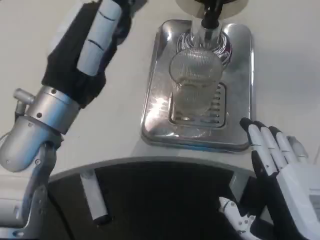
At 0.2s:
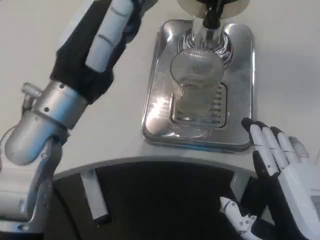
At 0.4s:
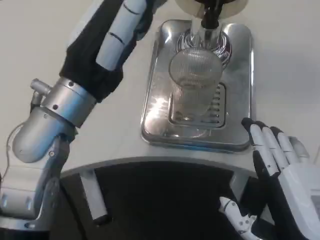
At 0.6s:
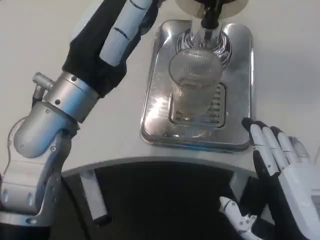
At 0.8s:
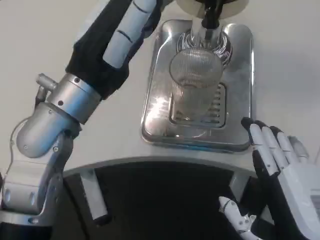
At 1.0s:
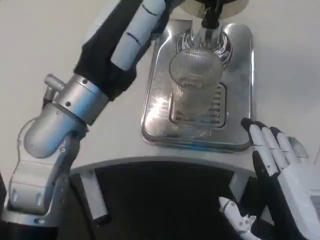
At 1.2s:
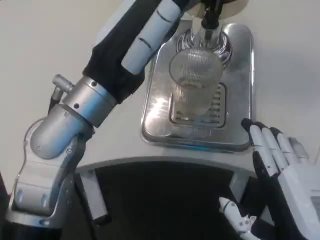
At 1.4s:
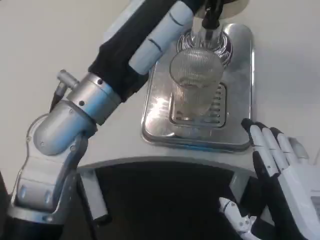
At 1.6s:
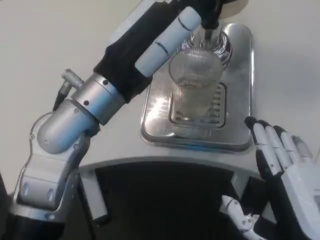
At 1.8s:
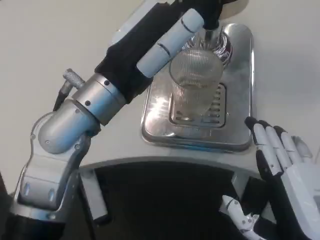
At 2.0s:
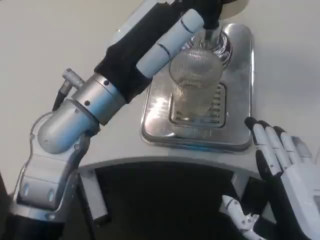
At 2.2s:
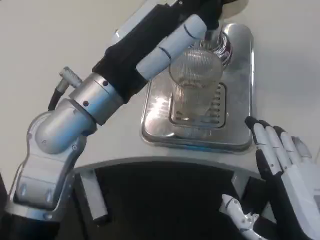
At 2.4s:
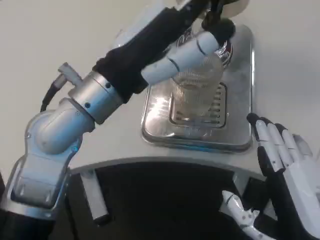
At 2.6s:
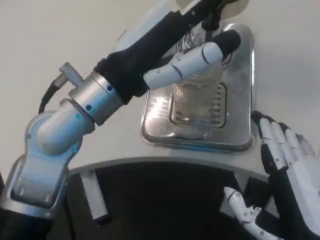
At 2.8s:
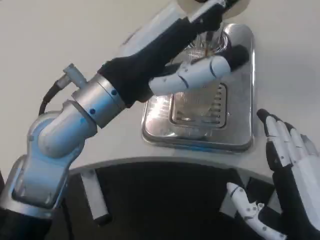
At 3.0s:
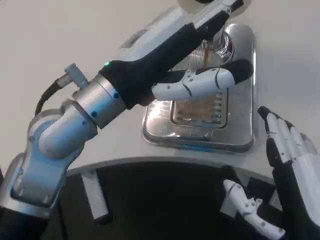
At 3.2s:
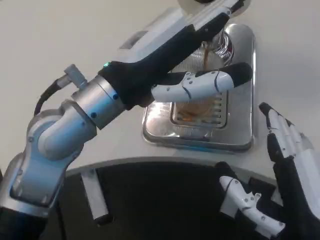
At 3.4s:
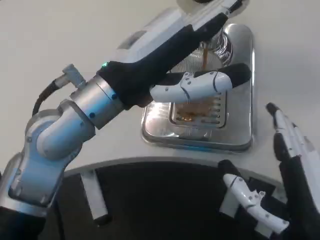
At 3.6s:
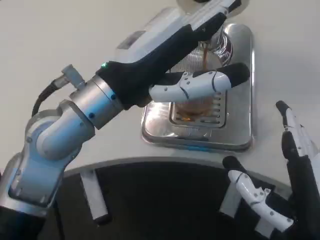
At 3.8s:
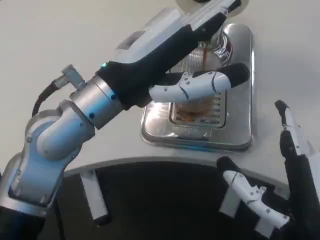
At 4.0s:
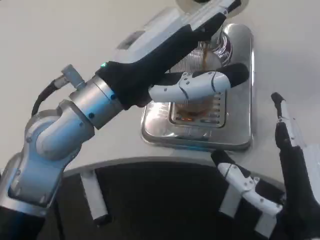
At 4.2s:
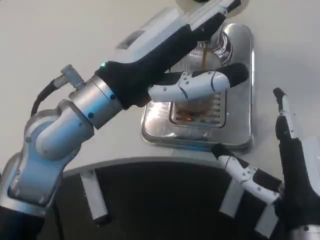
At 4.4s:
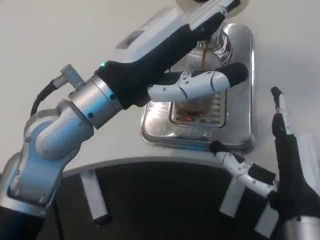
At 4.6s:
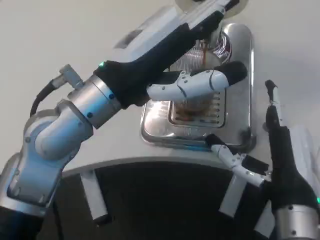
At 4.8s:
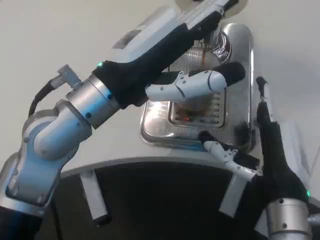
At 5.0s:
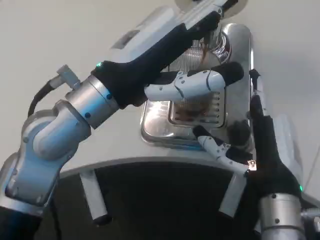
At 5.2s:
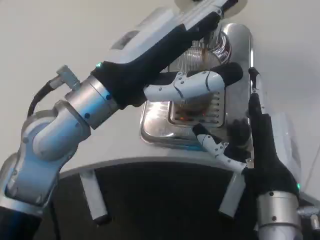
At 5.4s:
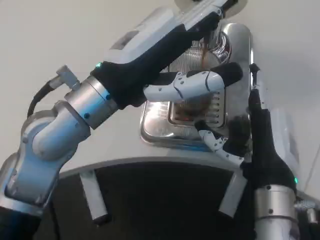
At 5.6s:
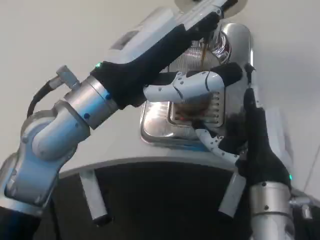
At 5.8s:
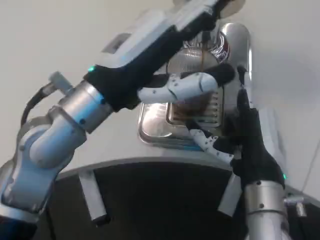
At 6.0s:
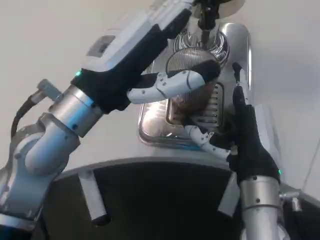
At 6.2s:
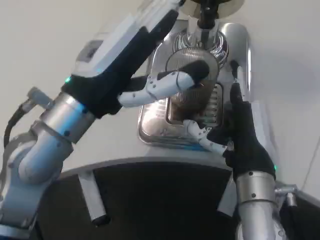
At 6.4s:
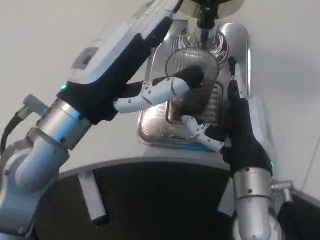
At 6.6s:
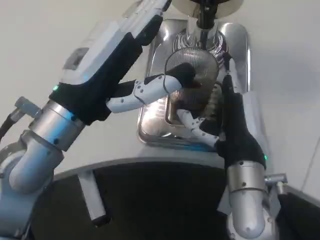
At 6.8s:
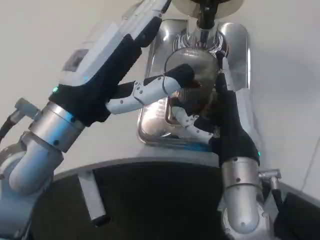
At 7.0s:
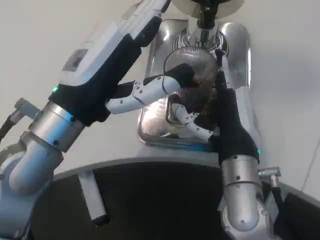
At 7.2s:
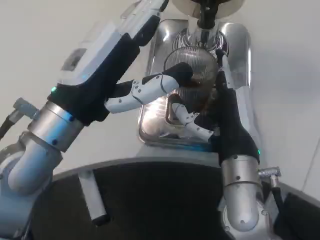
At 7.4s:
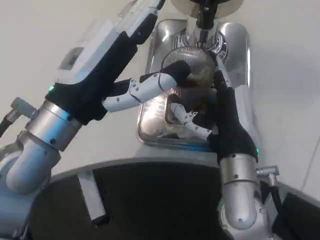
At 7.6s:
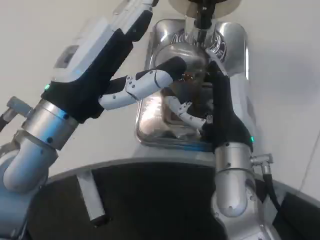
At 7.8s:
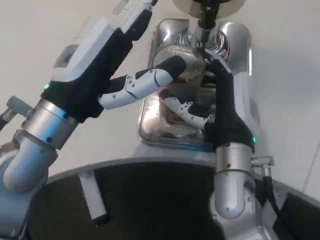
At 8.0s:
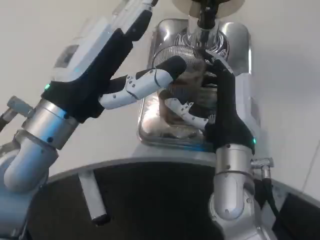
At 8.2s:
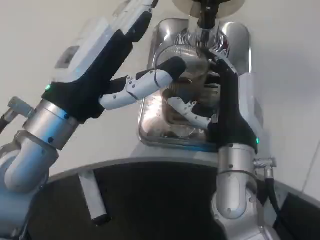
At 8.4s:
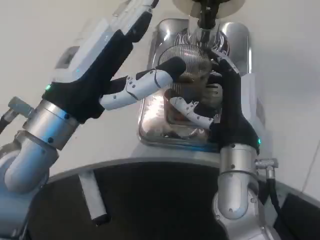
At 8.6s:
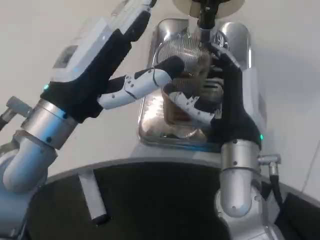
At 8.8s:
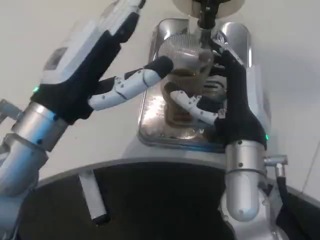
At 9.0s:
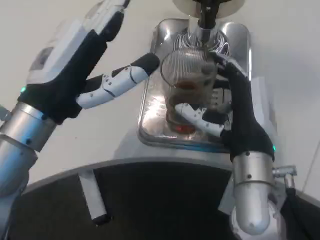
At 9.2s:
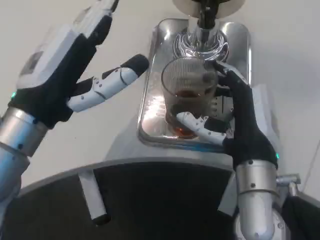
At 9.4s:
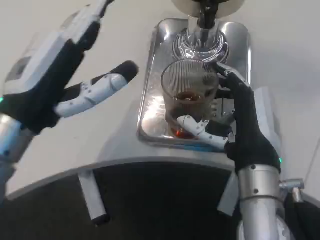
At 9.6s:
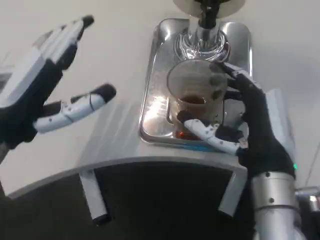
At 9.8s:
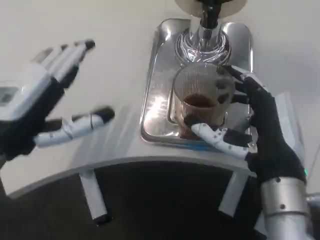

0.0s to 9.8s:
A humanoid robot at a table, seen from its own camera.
Task of the whole recording: Grasp the cup under the faucet to collect the drink, then remove the cup.
2.8s to 4.2s: The right hand goes some 5 cm forward.
4.2s to 5.6s: The right hand is displaced forward by approximately 5 cm.
8.4s to 9.8s: The right hand heads backward, covering about 5 cm. The left hand heads to the left, covering some 5 cm.

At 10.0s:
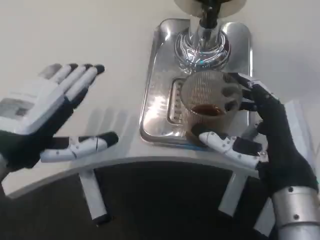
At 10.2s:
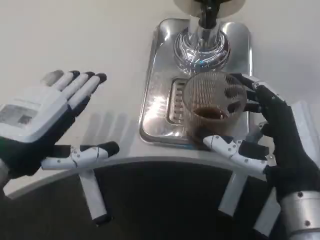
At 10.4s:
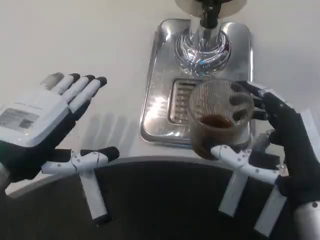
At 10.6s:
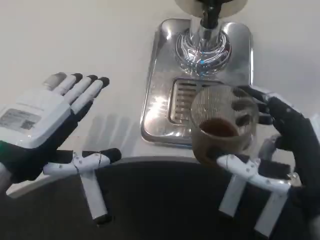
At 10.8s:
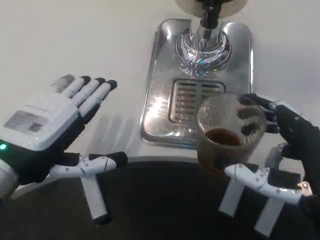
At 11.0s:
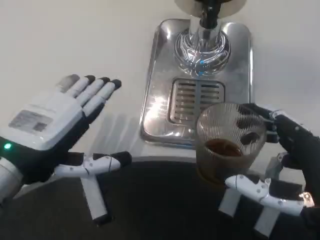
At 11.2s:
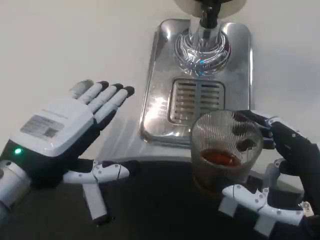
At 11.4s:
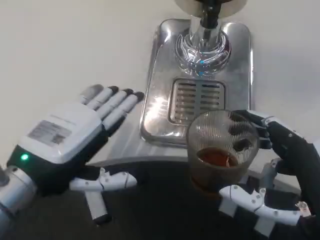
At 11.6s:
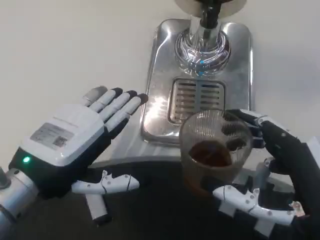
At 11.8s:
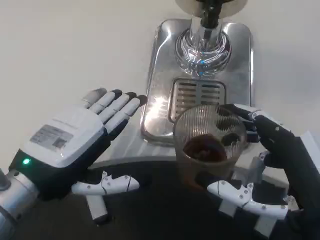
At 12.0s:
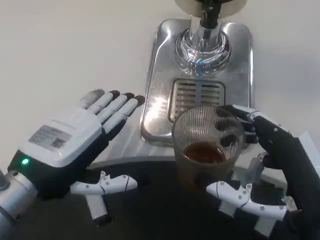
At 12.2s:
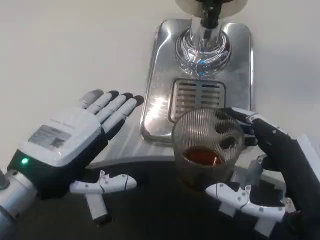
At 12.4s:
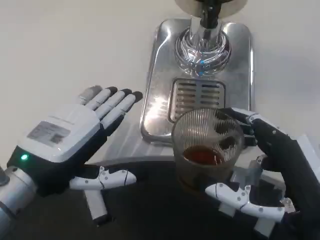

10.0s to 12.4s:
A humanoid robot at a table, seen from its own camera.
Task of the whole recording: Grasp the cup under the faucet to collect the drink, then remove the cup.
10.0s to 11.2s: The right hand moves backward, roughly 5 cm.
11.2s to 12.4s: There are only small adjustments of the hands.

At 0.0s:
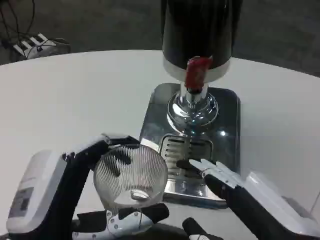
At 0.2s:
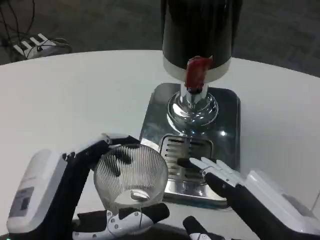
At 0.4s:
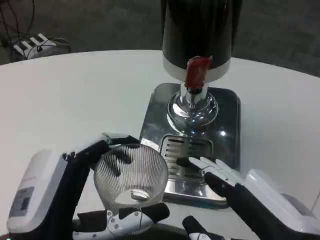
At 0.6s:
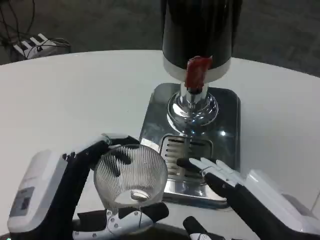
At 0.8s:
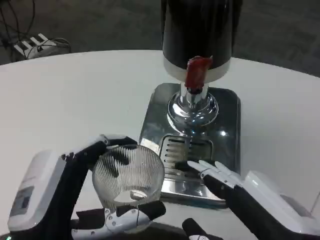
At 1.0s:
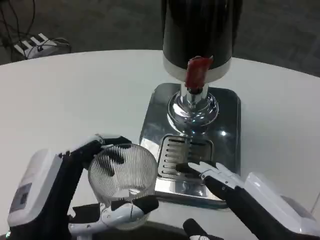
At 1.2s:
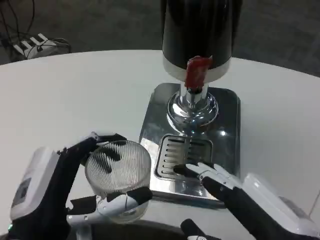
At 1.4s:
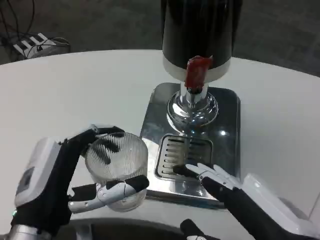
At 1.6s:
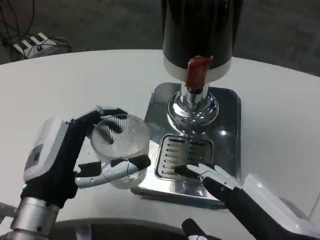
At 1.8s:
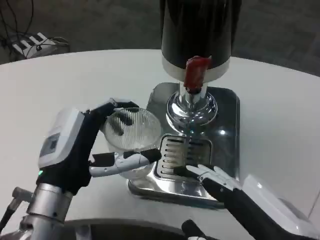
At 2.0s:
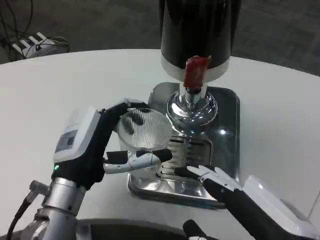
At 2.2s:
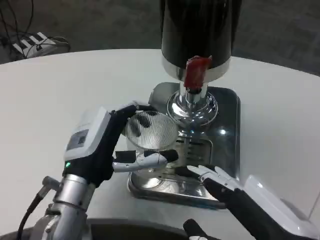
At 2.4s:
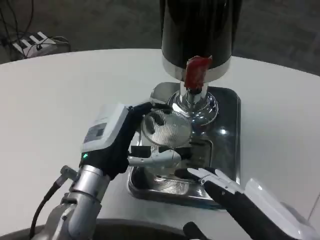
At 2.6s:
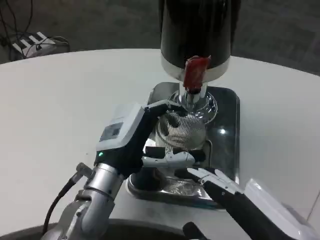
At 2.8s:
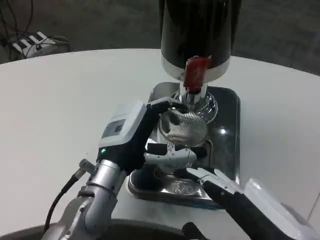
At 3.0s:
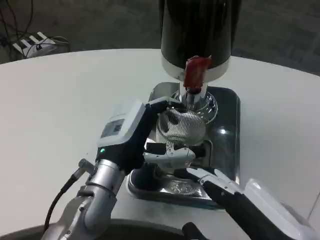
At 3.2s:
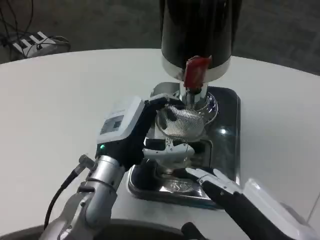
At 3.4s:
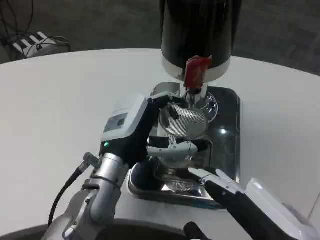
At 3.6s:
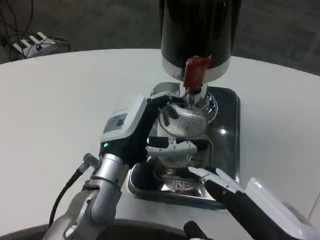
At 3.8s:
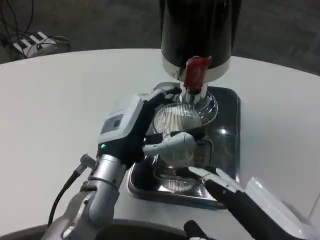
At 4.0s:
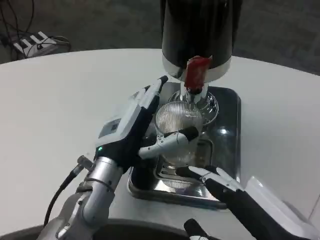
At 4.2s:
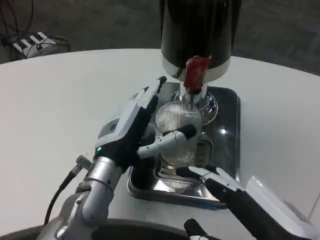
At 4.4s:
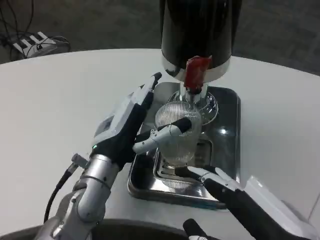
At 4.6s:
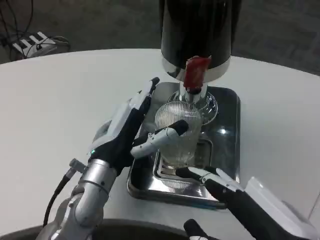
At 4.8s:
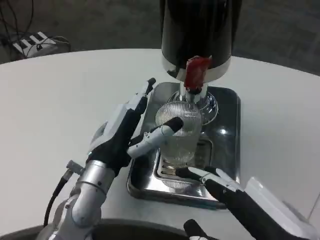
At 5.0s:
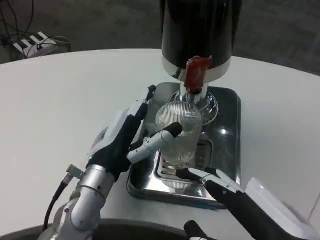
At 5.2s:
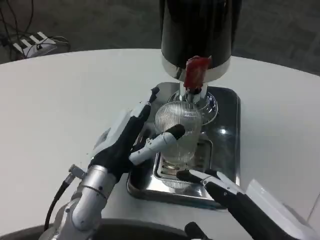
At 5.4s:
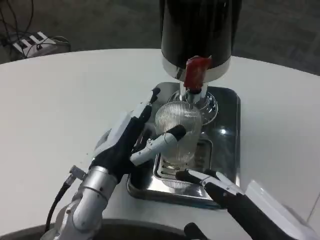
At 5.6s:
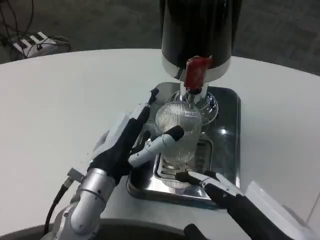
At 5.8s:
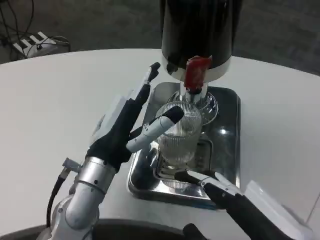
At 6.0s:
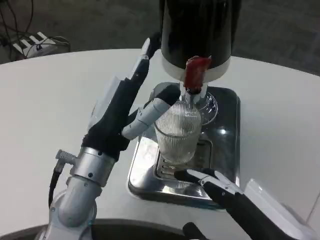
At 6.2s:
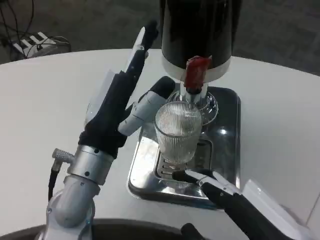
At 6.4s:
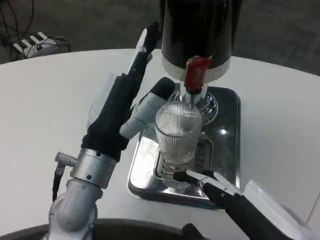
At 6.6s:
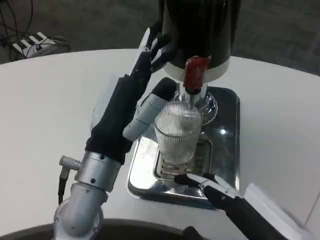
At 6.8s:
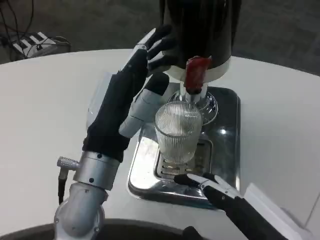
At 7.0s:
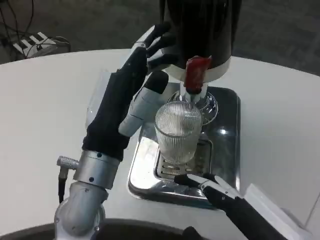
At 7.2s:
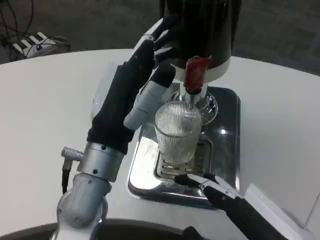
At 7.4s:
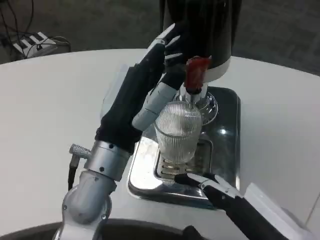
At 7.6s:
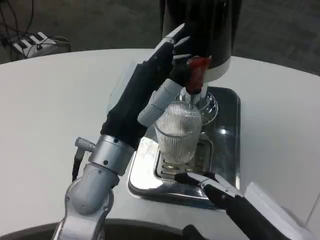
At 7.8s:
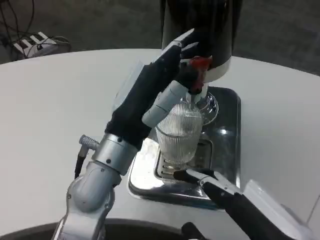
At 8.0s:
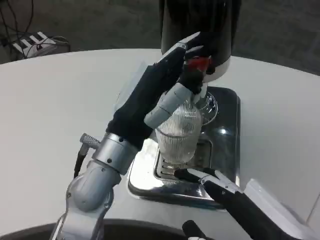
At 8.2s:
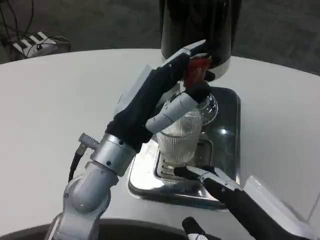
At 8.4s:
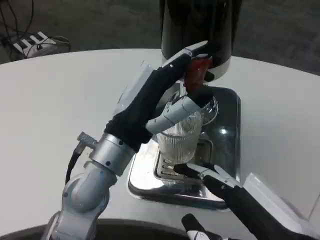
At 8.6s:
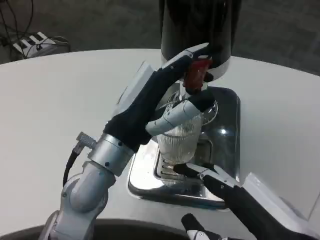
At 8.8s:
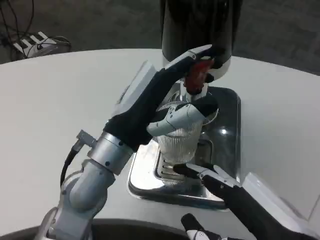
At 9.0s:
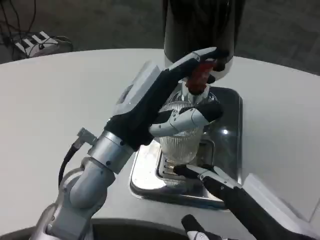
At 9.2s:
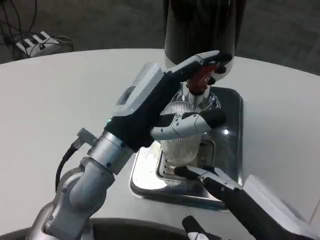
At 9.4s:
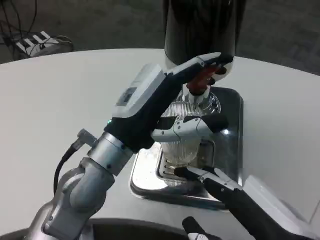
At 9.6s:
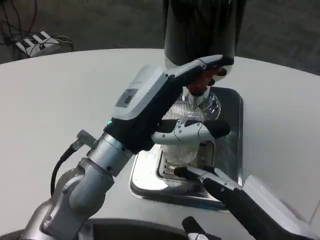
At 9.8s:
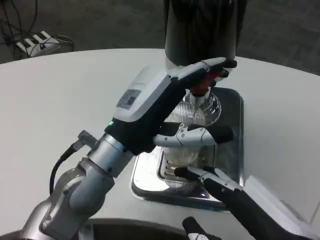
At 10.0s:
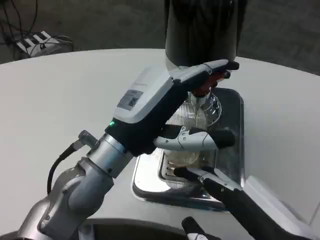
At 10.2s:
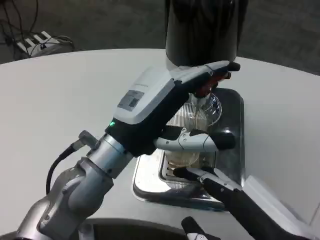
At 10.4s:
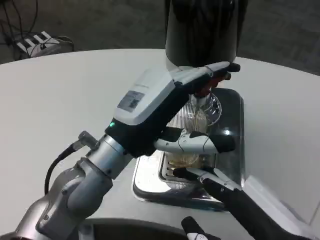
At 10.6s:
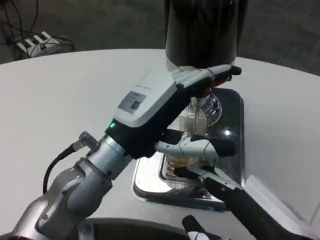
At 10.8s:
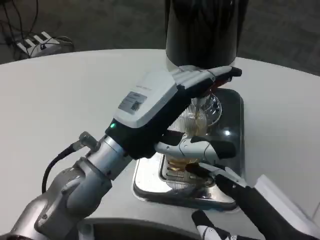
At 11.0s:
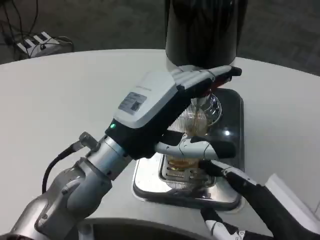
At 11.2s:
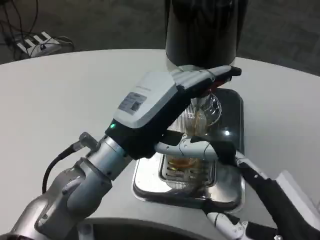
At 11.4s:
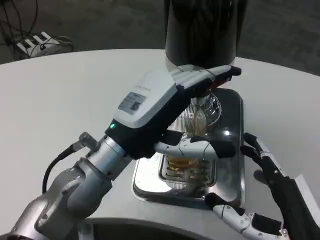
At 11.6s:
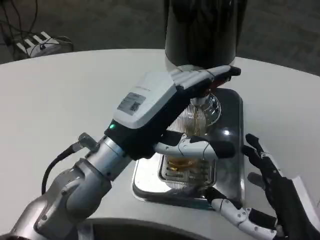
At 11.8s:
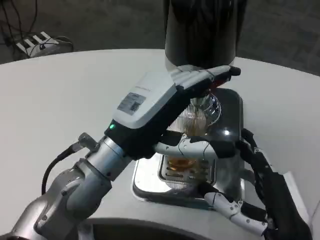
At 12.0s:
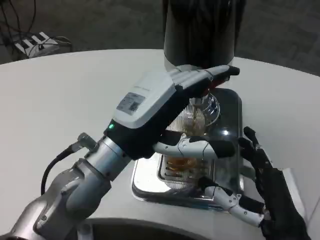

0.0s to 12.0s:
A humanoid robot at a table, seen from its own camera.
Task of the whole recording: Grasp the cup under the faucet to collect the drink, then remove the cup.
0.0s to 1.6s: The left hand moves forward, about 10 cm.
1.6s to 3.0s: The left hand goes approximately 10 cm forward and to the right.
3.0s to 4.4s: The hands stay close to where they were, moving slightly.
6.0s to 7.6s: There are only small adjustments of the hands.
9.0s to 10.4s: There are only small adjustments of the hands.
10.4s to 12.0s: The right hand moves forward and downward, about 10 cm.
